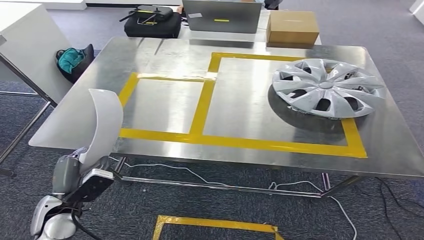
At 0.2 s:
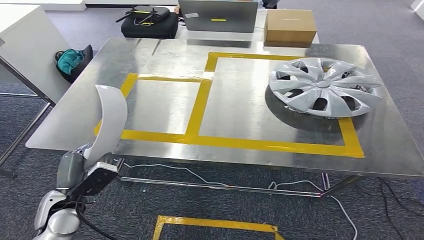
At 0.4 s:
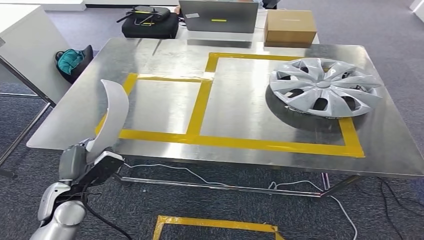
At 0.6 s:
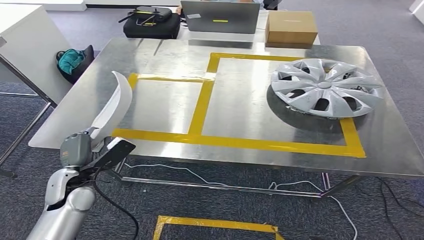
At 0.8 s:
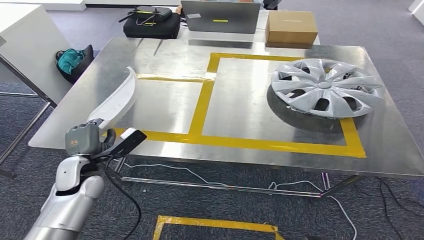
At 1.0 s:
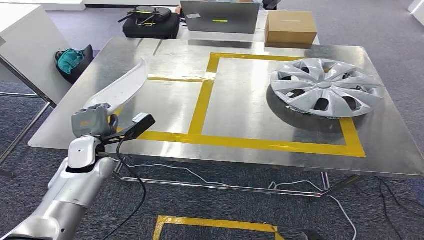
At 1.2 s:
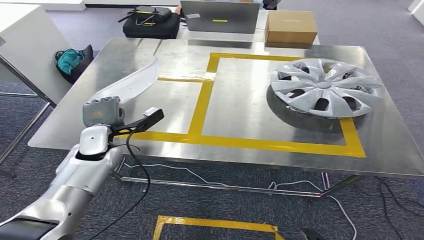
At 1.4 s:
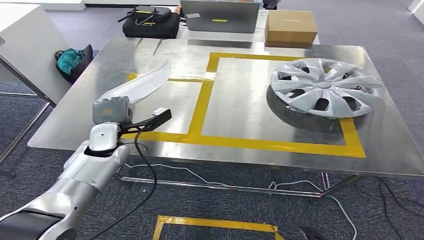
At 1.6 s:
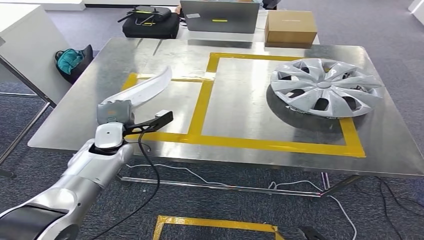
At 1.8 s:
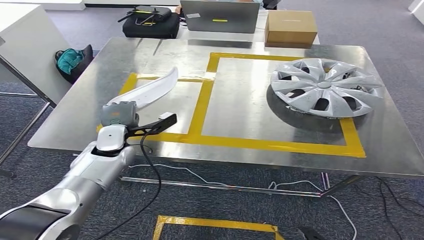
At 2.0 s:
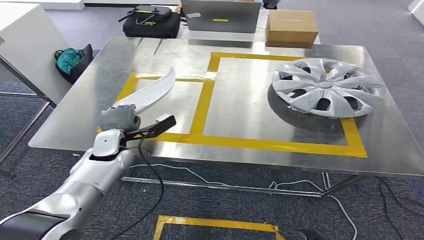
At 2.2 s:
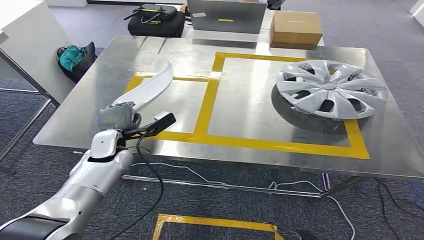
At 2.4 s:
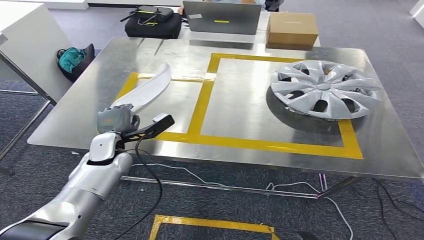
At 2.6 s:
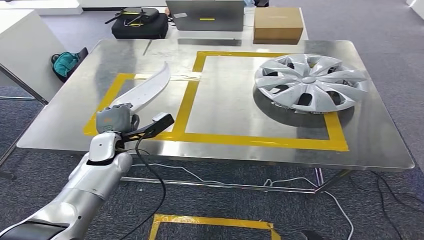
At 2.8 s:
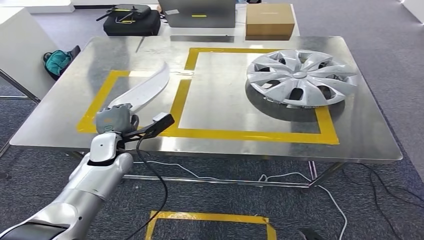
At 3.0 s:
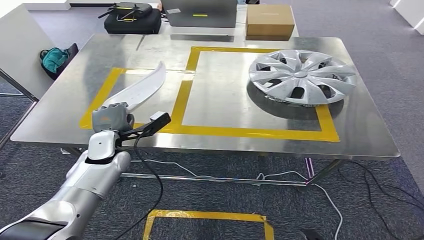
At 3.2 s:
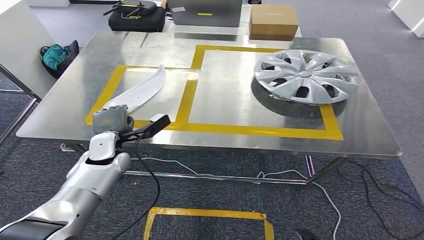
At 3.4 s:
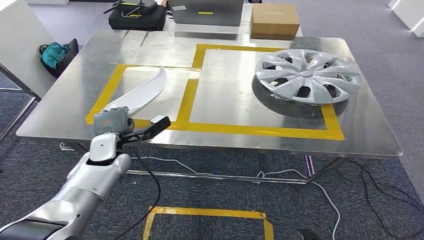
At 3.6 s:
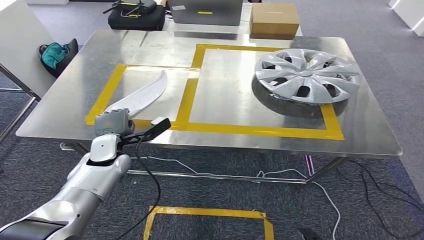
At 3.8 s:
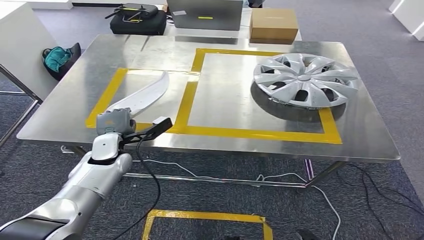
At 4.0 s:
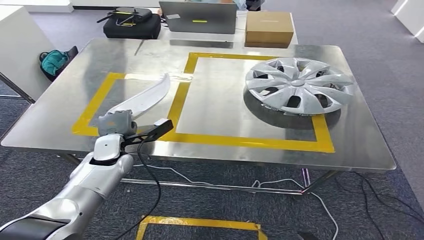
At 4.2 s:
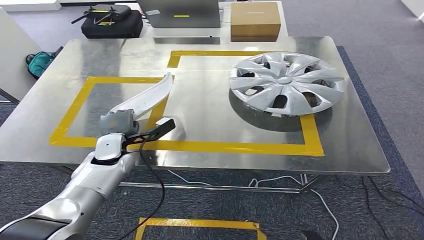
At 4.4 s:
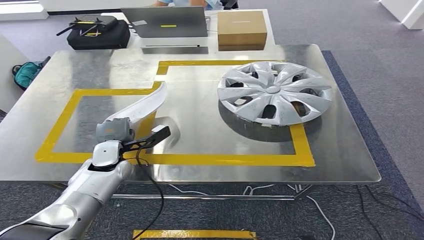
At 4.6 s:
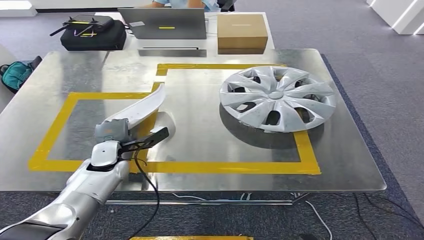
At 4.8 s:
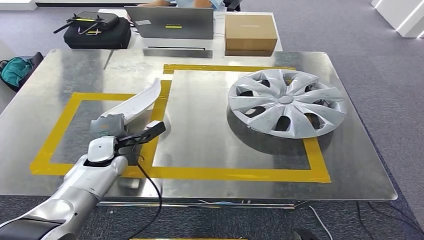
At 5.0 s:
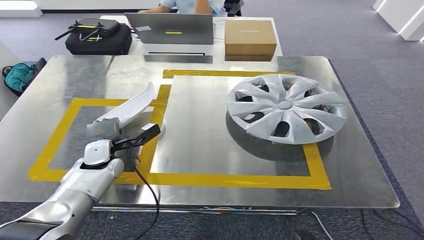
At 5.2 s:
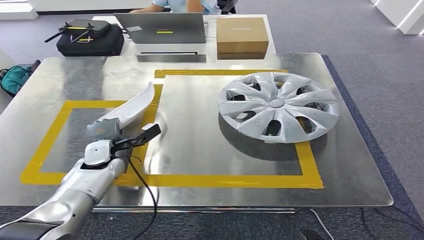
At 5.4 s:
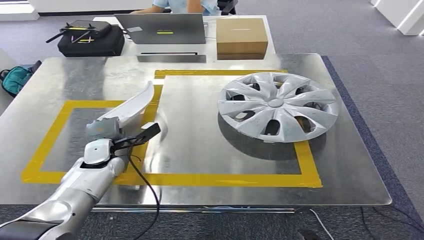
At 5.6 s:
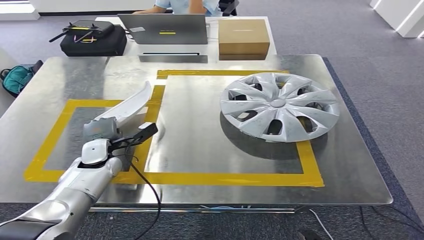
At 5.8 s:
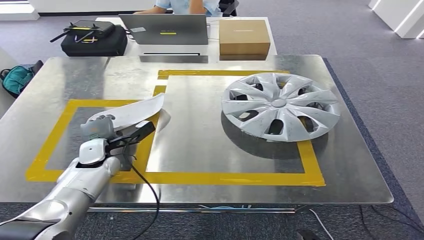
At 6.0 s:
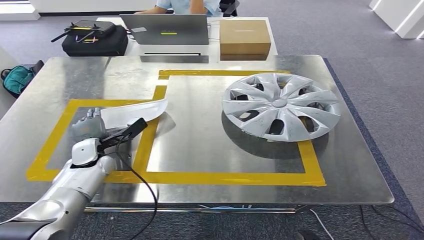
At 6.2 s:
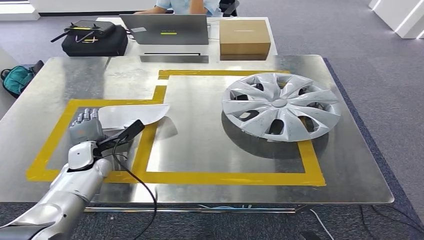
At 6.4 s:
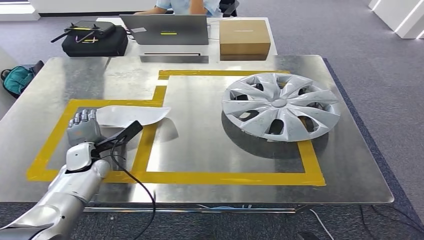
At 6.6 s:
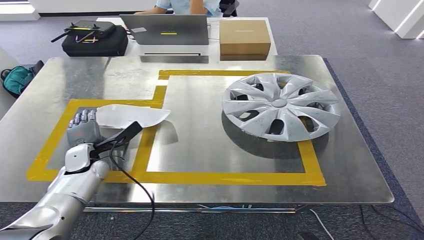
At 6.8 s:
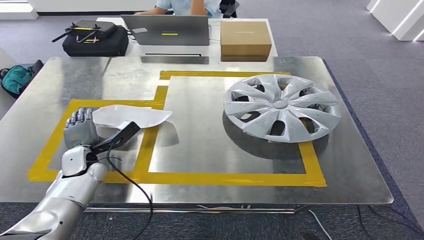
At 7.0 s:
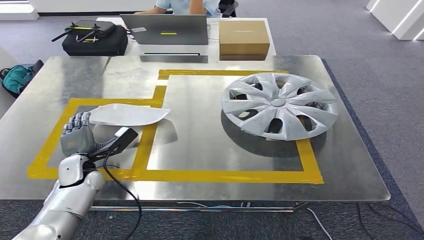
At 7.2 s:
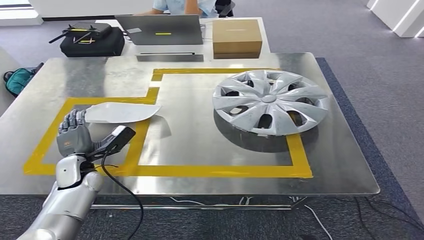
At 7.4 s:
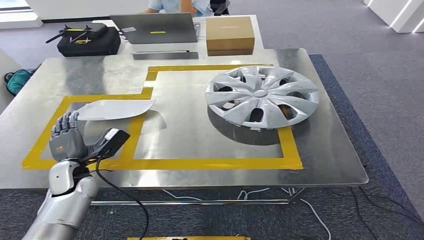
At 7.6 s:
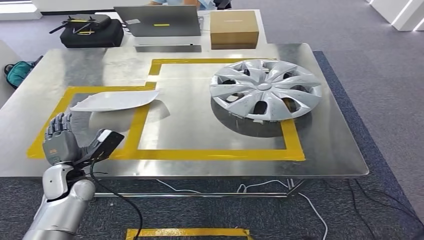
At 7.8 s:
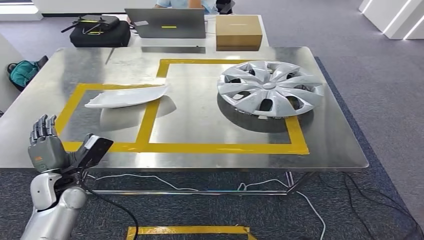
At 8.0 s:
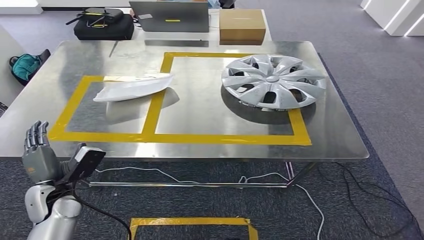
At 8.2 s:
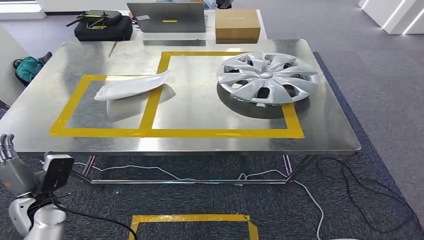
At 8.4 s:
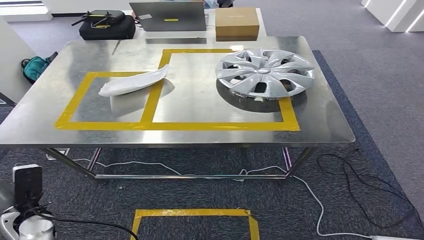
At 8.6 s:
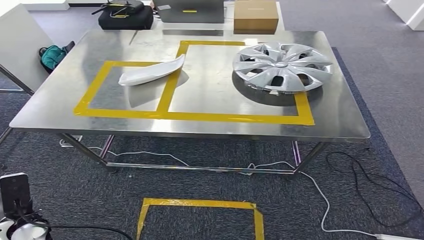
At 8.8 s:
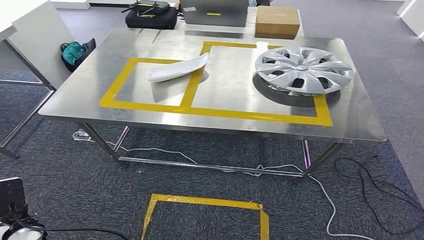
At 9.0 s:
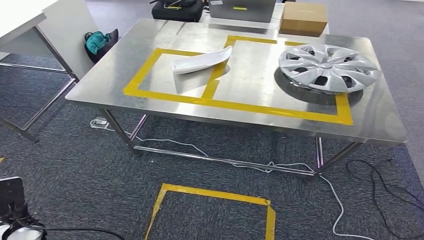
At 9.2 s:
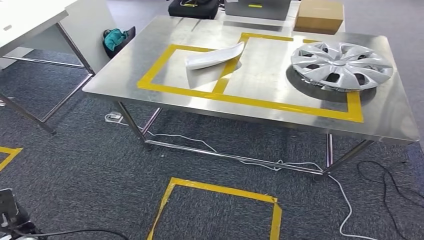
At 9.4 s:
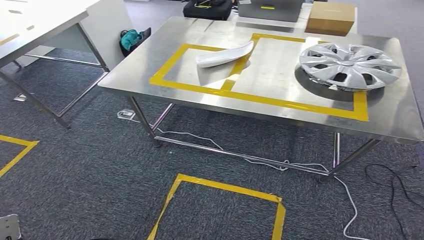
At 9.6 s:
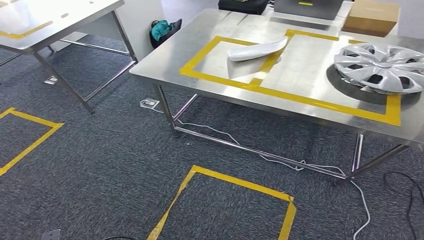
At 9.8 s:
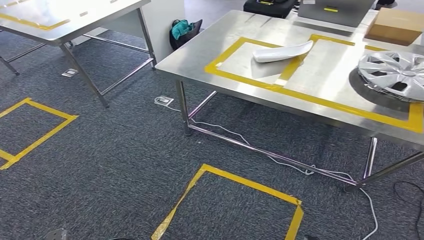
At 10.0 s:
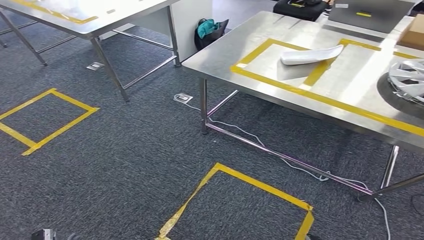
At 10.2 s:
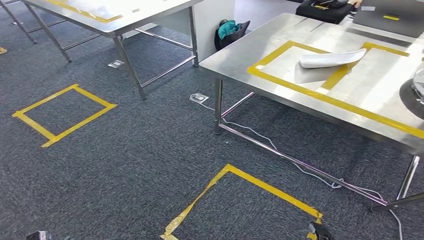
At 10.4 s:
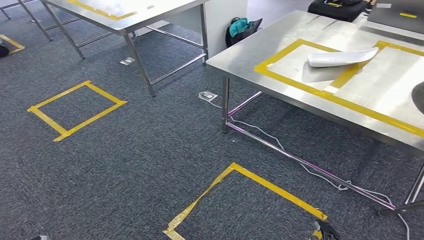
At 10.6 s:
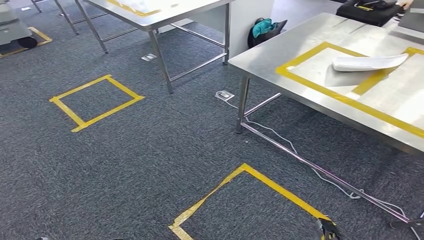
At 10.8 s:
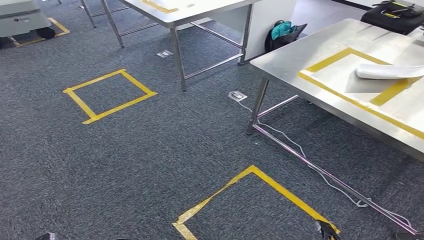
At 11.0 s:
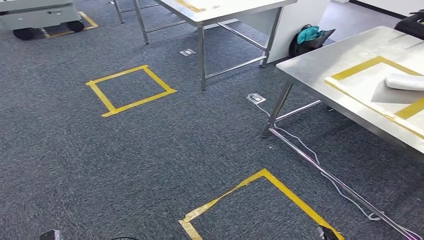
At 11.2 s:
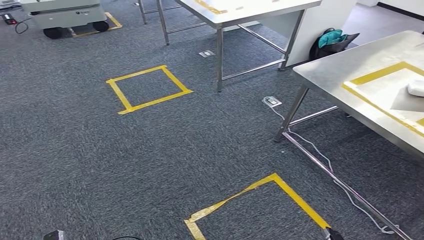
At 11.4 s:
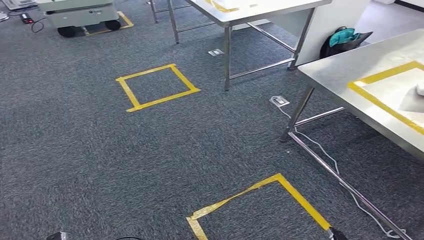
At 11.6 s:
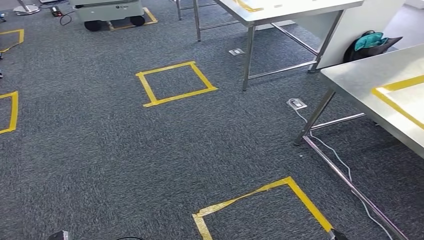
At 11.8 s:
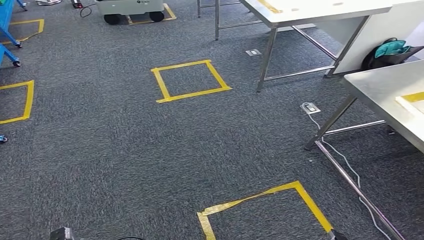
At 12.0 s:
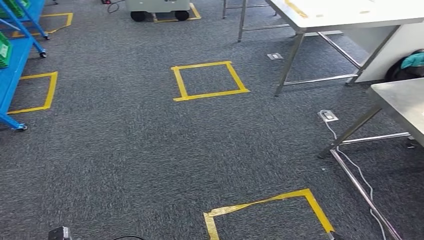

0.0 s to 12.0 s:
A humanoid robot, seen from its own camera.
Step, 0.0 to 7.4 s: Insert the small component into the corresponding slot on the workbench.
0.0 to 1.6 s: The left hand is displaced forward by approximately 20 cm.

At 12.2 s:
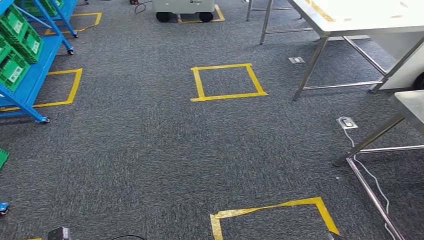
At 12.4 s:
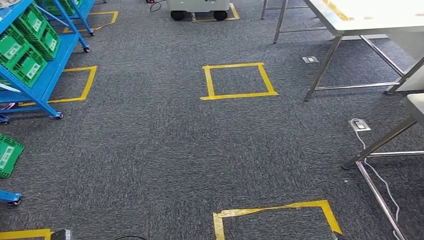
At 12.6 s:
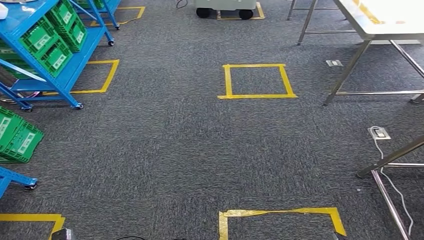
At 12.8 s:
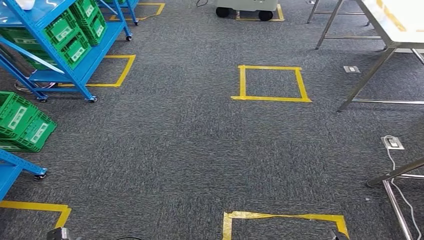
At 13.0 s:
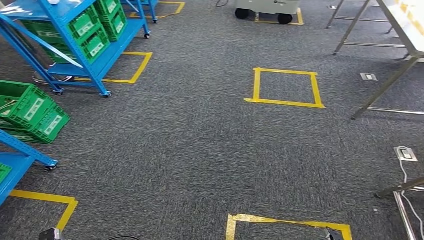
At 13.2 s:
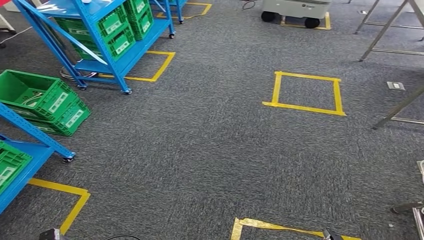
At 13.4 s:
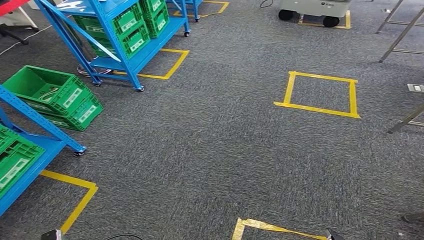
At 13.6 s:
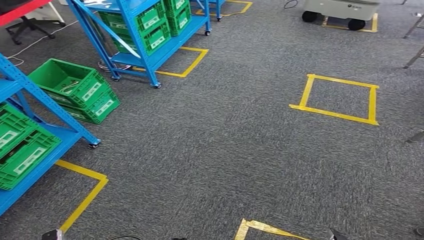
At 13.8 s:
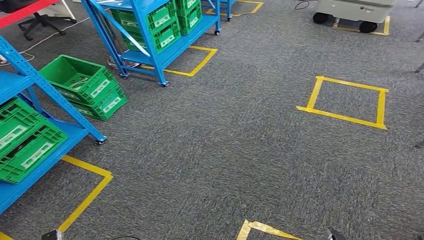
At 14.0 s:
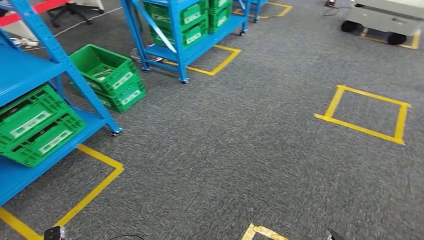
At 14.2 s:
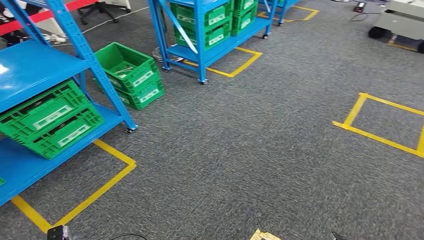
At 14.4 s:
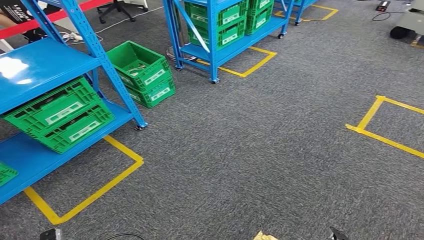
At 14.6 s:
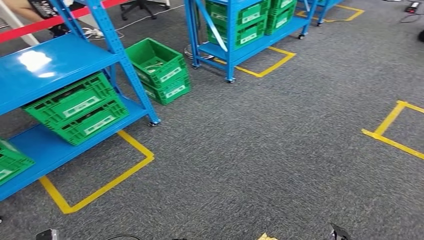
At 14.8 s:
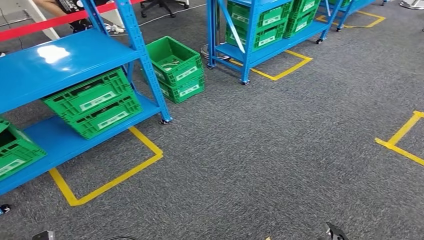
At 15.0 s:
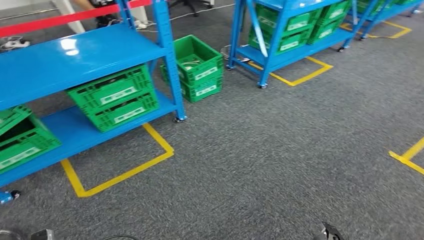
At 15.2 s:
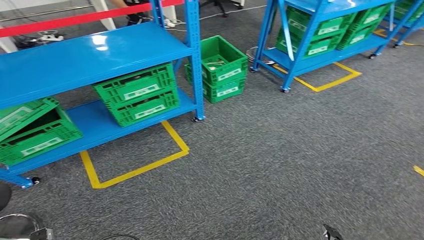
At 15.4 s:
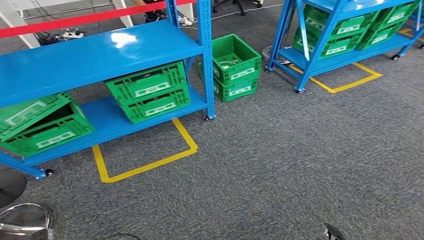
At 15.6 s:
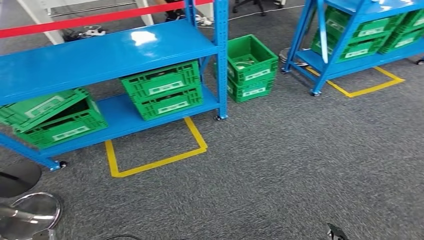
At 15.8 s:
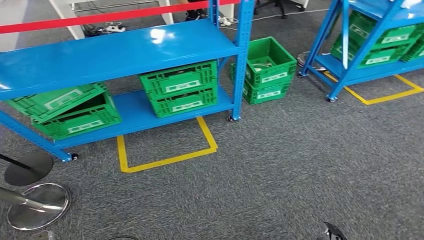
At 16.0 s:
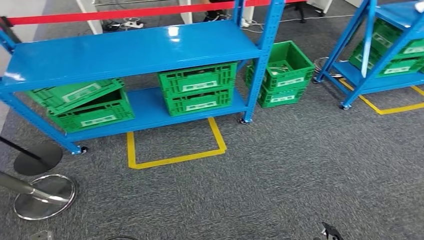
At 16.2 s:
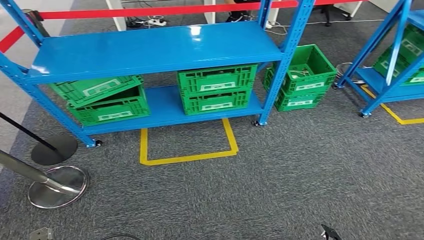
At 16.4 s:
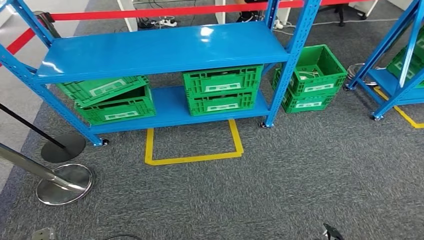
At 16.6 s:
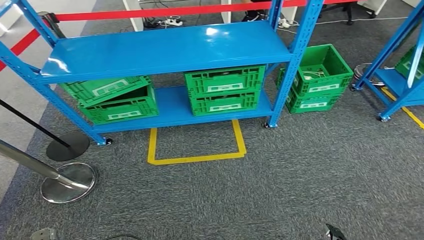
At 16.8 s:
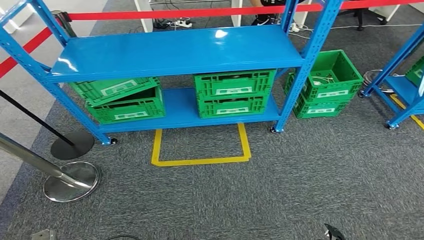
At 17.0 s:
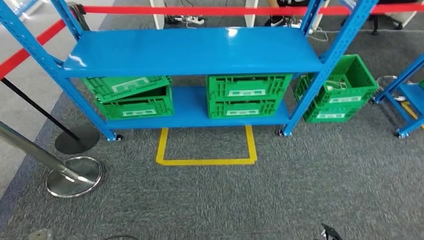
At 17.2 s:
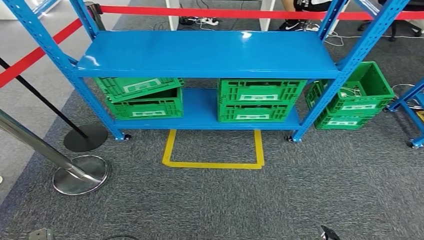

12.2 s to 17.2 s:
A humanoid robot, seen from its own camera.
Step, 12.2 to 17.2 s: Move to the initial position at the workbench.
